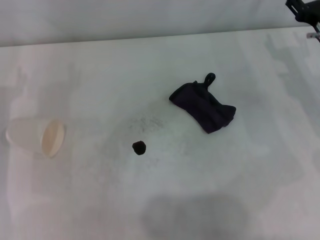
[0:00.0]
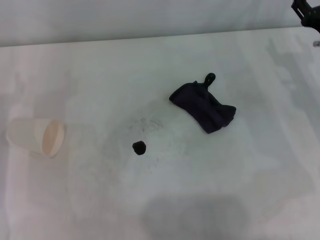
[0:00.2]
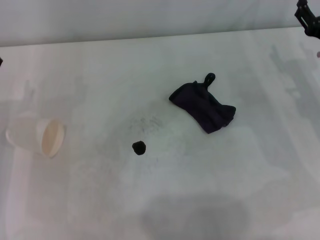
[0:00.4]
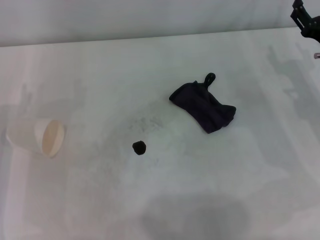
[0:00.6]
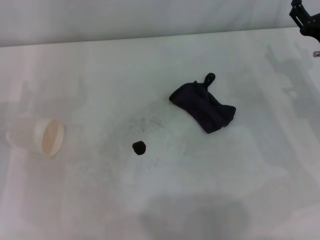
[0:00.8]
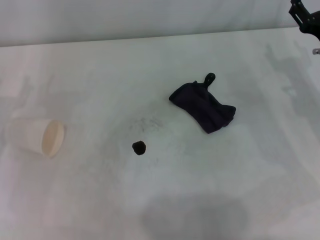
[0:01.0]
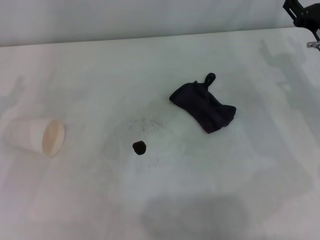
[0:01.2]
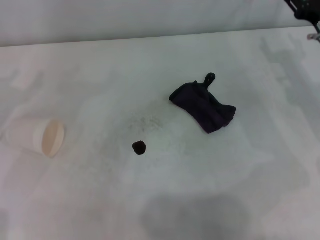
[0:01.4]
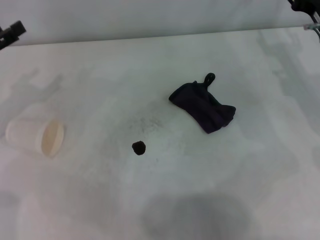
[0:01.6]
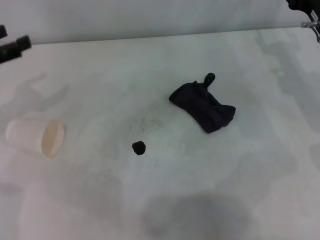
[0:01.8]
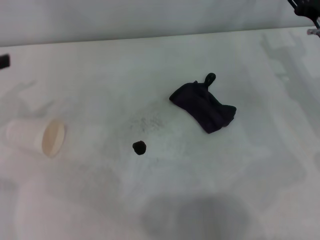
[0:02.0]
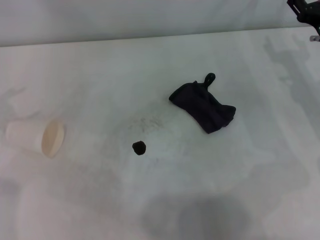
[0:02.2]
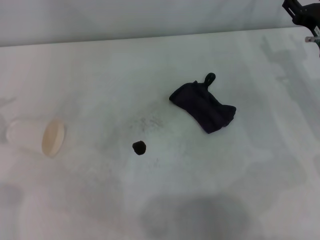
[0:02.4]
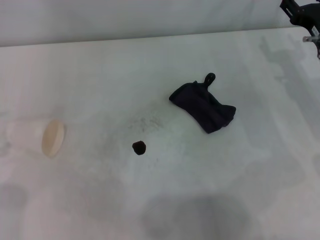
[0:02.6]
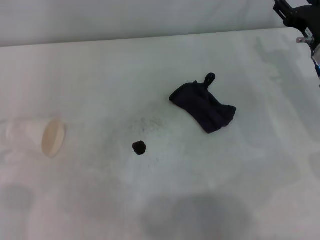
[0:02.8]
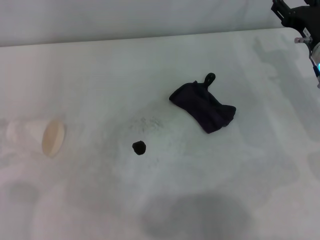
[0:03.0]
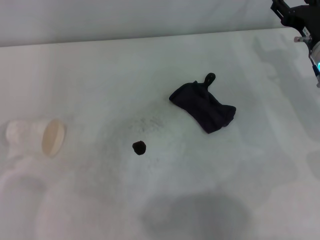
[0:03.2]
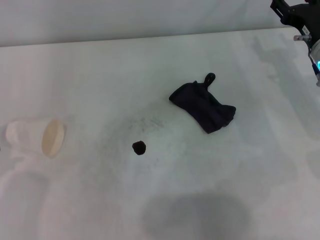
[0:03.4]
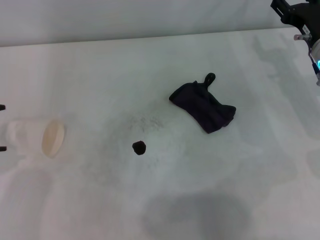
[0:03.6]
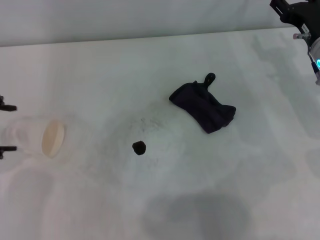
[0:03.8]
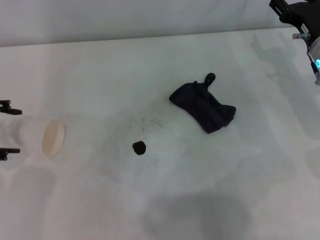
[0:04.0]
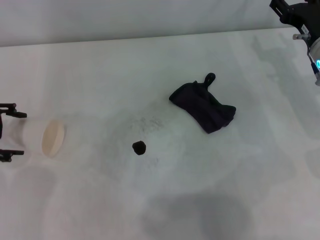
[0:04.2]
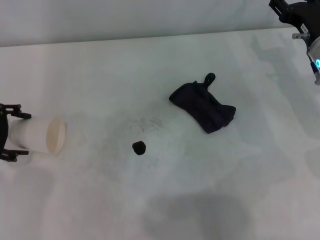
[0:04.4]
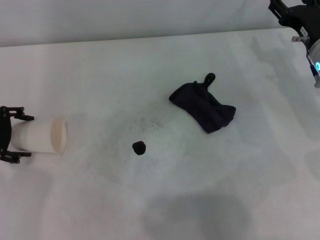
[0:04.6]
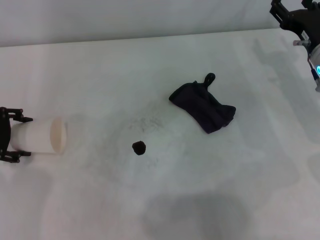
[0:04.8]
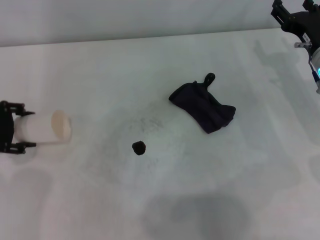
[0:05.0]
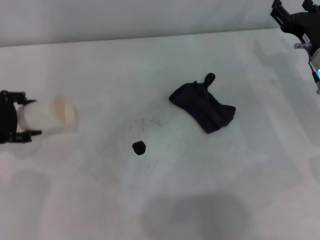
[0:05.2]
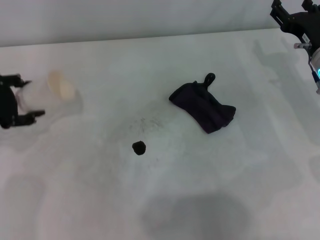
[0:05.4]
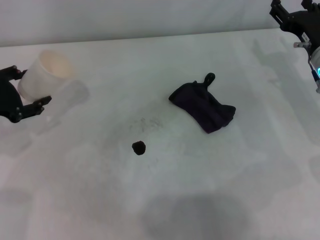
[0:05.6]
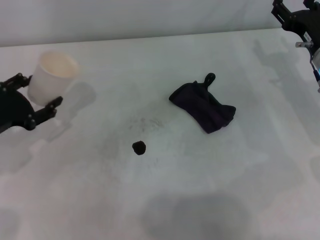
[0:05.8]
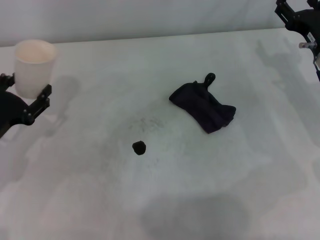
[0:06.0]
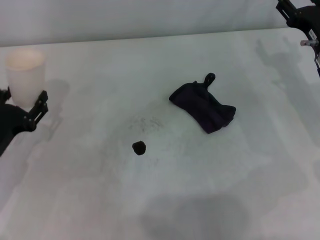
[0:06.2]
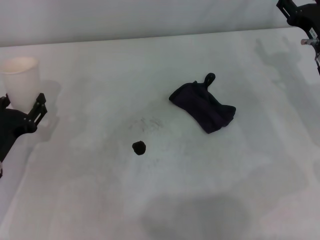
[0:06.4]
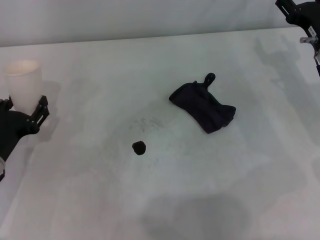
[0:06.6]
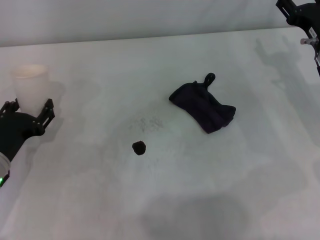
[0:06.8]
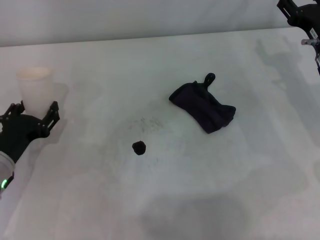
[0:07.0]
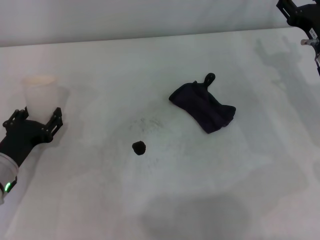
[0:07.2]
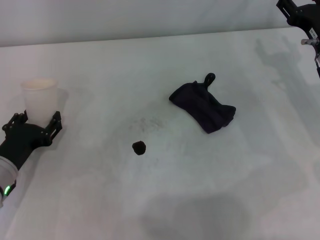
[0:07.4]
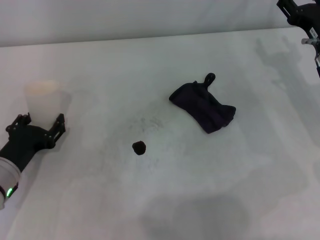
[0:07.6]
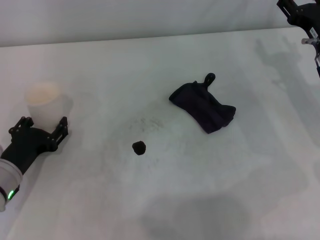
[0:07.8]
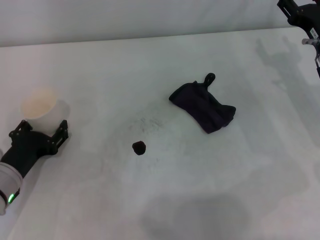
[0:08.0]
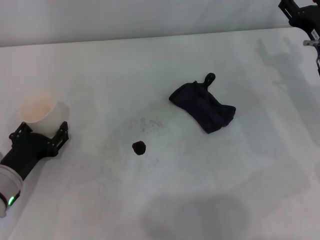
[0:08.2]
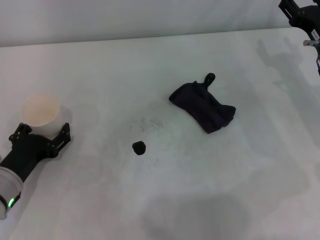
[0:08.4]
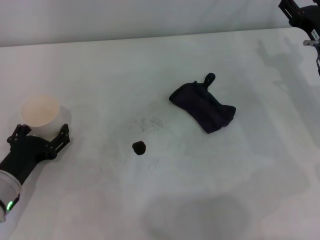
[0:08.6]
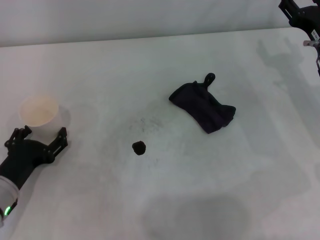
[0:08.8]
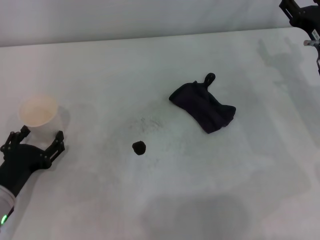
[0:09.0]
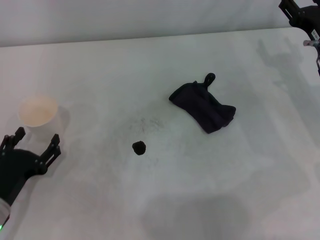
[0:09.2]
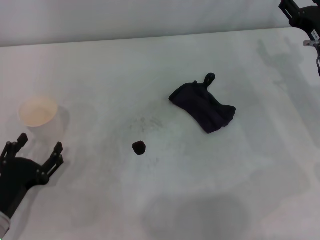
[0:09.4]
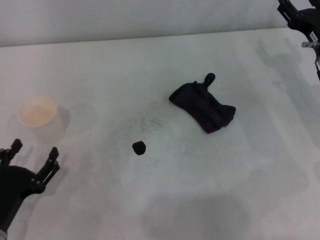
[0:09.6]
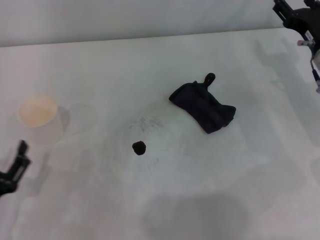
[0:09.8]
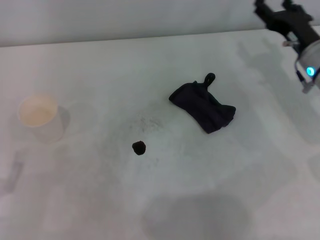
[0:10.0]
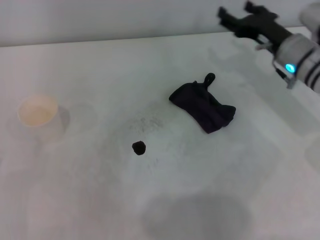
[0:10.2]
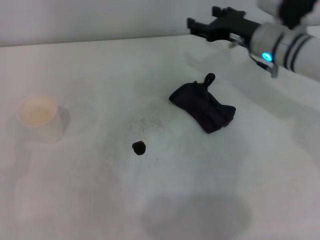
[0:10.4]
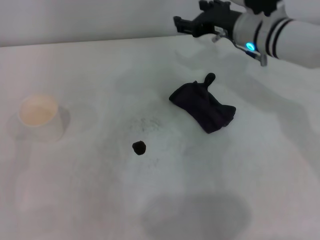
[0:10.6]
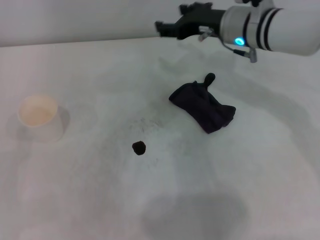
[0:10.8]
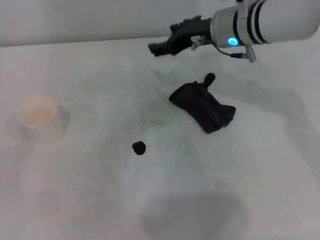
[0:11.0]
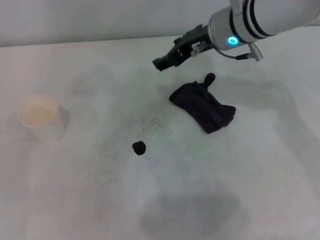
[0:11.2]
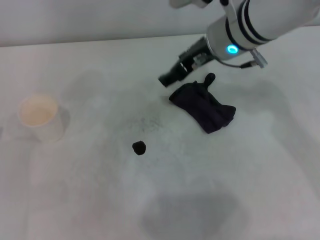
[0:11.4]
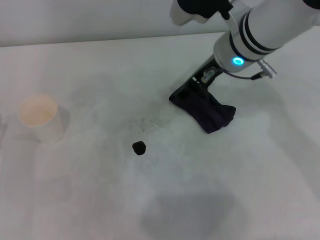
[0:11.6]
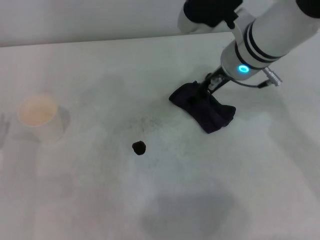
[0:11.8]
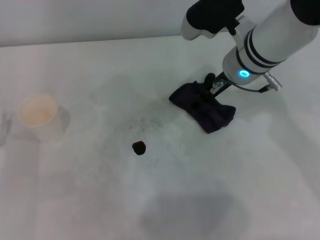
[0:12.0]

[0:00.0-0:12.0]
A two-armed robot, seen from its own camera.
Step, 0:00.0 to 0:04.6: Grasp the paper cup with the left gripper.
Step, 0:04.8 to 0:08.4: Stand the paper cup upright with the left gripper.
0:00.0 to 0:01.6: The left gripper shifts approximately 5 cm upward.
0:03.0 to 0:04.4: The left gripper is displaced forward, to the right and downward by approximately 10 cm.
0:04.4 to 0:06.0: The left gripper heads downward and backward, covering approximately 10 cm, and closes.
0:06.0 to 0:07.6: The left gripper changes place by roughly 5 cm.
0:07.6 to 0:09.0: The left gripper opens up.
0:09.0 to 0:10.4: The left gripper goes some 10 cm to the left and backward. Meanwhile the right gripper moves to the left and forward, some 10 cm.
0:10.4 to 0:12.0: The left gripper moves forward, approximately 5 cm, while the right gripper shifts approximately 5 cm to the left.

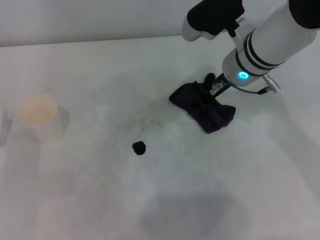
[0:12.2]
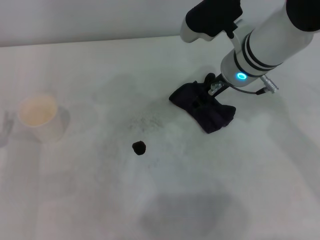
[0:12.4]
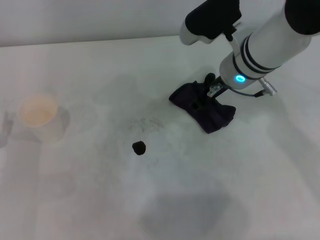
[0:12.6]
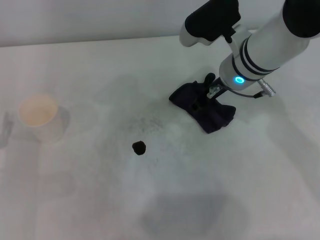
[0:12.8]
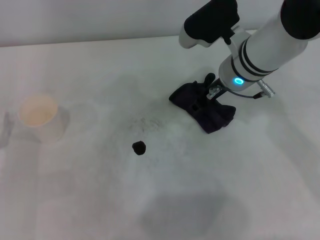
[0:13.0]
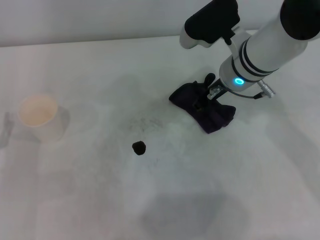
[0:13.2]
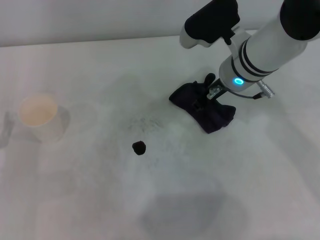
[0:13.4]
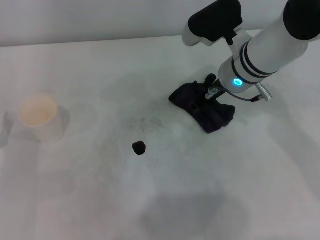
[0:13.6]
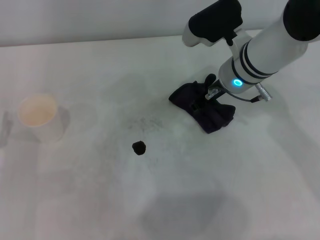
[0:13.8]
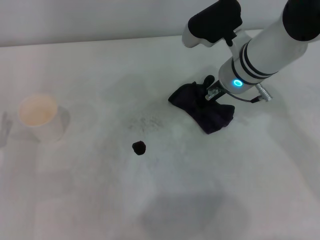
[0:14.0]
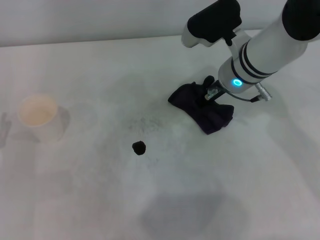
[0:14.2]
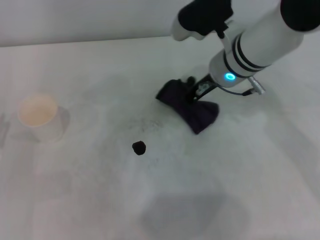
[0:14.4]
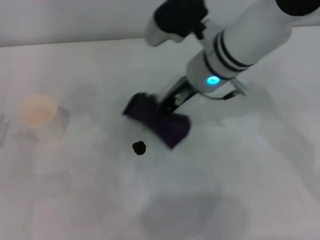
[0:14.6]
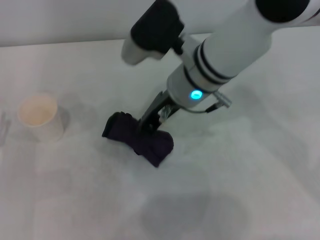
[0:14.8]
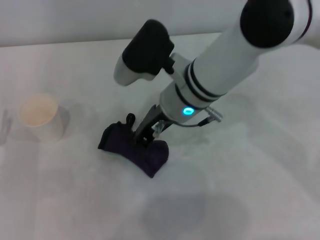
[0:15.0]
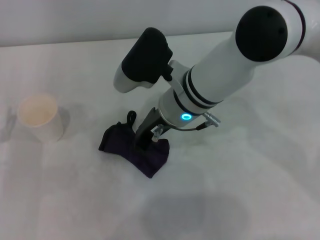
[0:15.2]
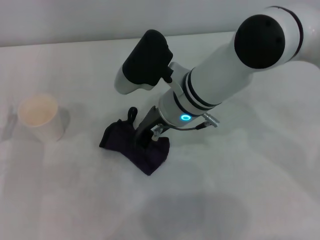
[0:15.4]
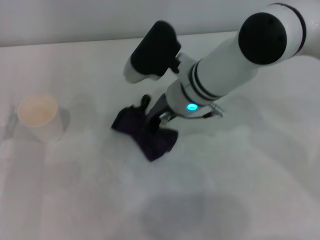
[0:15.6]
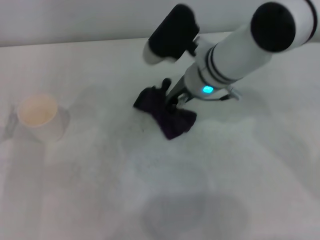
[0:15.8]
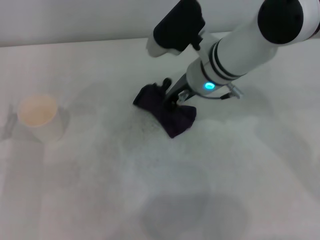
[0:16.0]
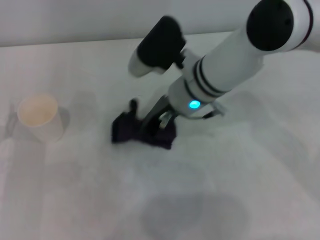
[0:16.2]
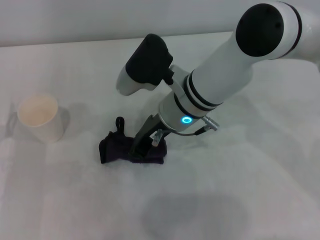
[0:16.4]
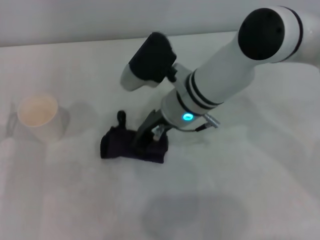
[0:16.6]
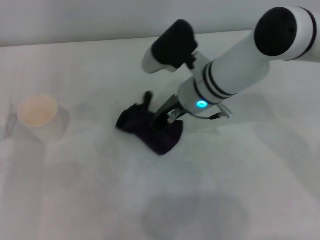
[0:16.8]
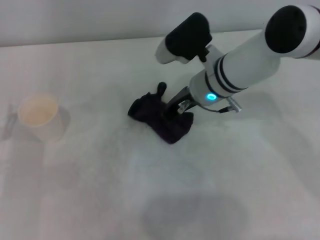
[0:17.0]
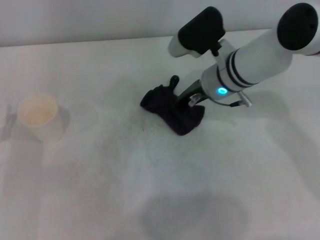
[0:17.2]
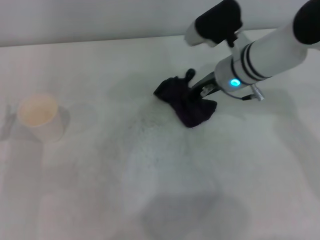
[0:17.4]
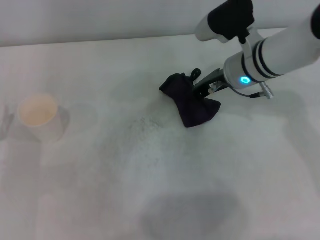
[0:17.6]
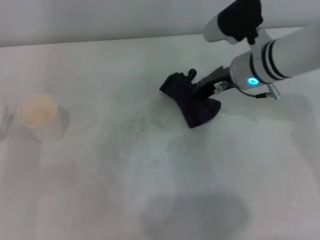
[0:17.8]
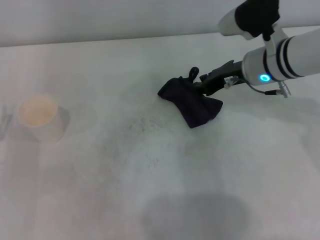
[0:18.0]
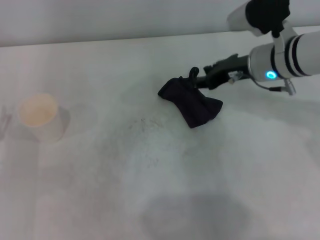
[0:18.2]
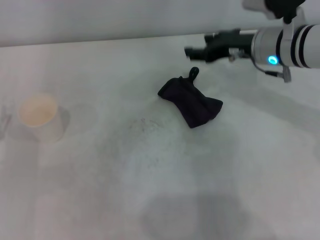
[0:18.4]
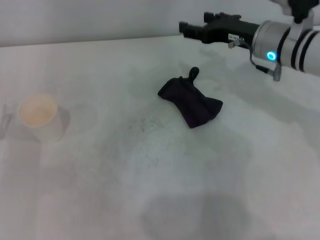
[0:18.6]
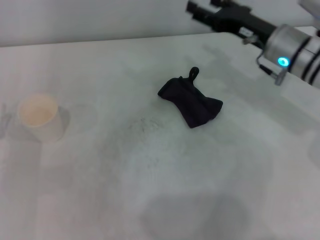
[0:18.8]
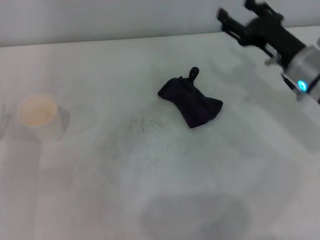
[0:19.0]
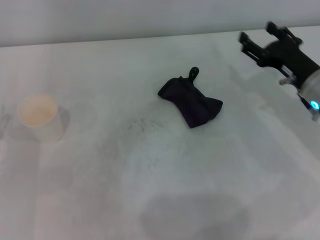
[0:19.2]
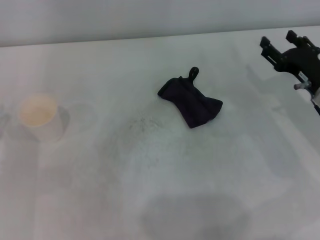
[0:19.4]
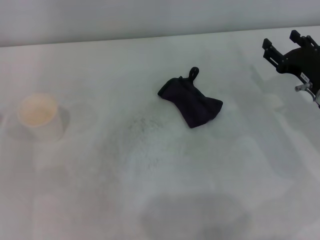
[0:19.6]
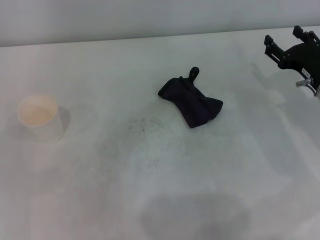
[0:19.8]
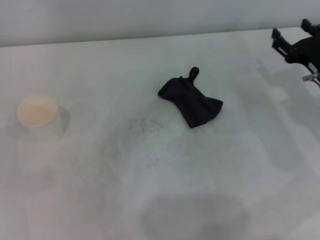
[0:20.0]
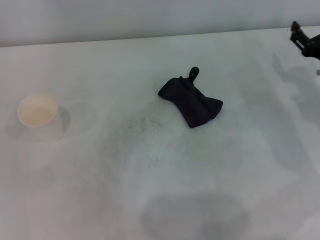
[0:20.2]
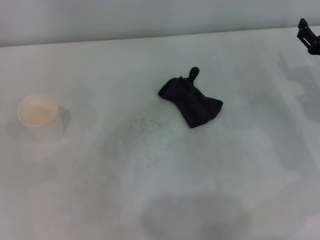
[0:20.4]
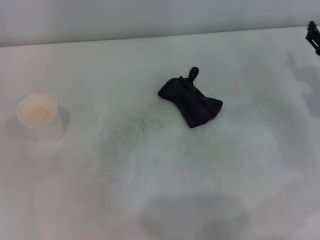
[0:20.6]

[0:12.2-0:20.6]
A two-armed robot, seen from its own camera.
Step, 0:14.4 to 0:17.0: Wipe the stains off the table with the right gripper.
Step, 0:17.2 to 0:17.8: Place the rag on the table with the right gripper.
0:12.2 to 0:13.6: The right gripper closes up.
0:13.6 to 0:15.0: The right gripper moves to the left, some 10 cm.
0:16.4 to 0:17.8: The right gripper shifts some 10 cm to the right.
0:17.8 to 0:19.2: The right gripper travels to the right, backward and downward by some 15 cm, and opens its fingers.
0:19.2 to 0:20.6: The right gripper shifts some 5 cm to the right.
